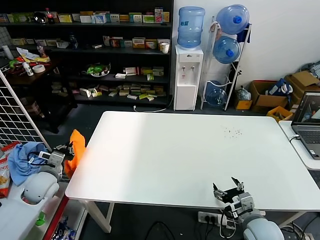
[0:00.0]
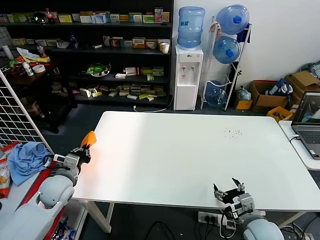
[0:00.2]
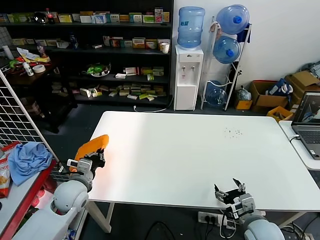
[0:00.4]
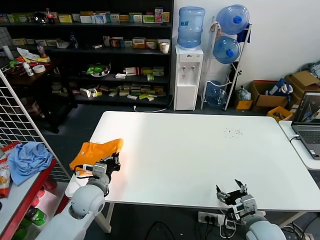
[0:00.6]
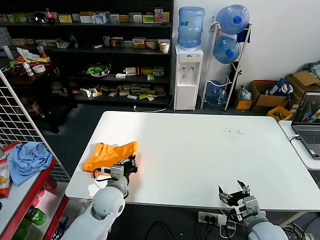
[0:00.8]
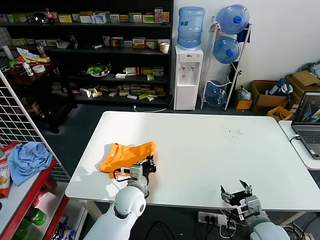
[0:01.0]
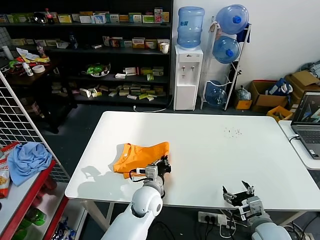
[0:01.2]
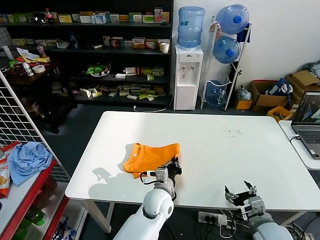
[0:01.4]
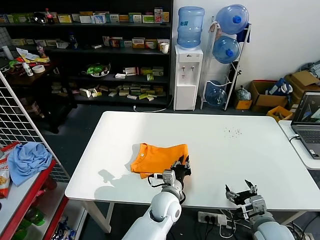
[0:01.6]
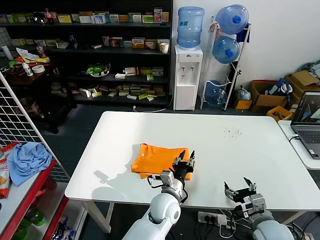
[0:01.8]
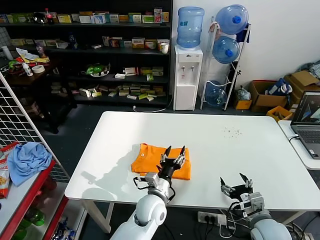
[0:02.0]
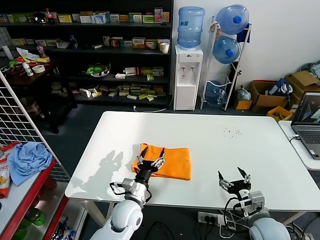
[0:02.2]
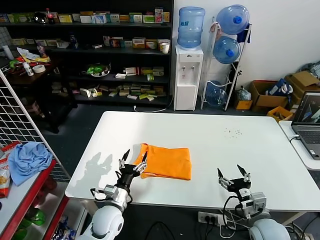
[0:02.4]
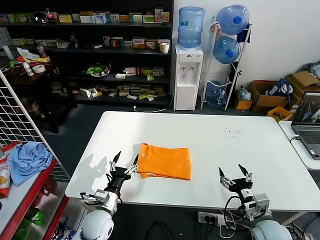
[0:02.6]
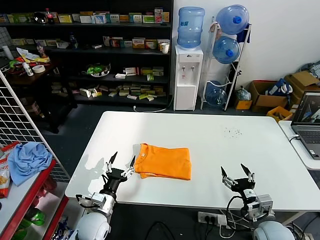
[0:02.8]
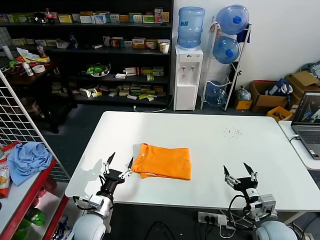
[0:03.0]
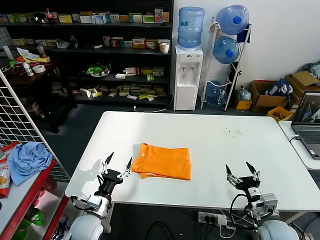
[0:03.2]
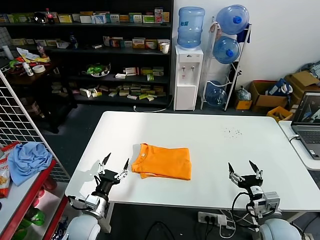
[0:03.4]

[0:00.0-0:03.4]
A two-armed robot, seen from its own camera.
Task of the whole recording: fold and organize the clothes.
Step, 0:00.0 to 0:02.0: Flip the folded clothes over with left gripper.
0:00.0 to 0:01.6: The left gripper heads to the right, covering some 40 cm.
0:01.6 to 0:03.4: The left gripper heads to the left, covering some 25 cm, and opens.
